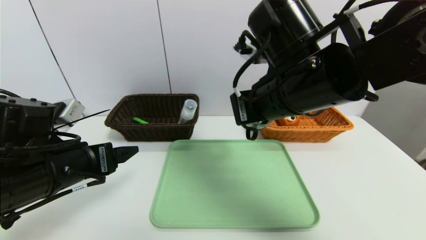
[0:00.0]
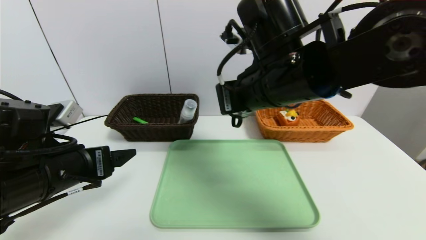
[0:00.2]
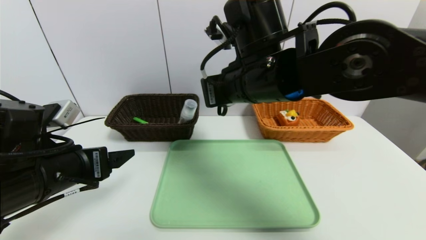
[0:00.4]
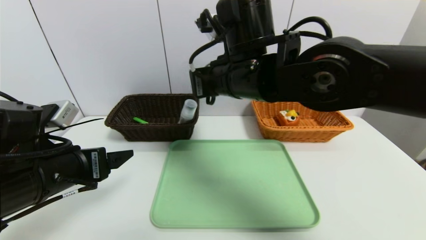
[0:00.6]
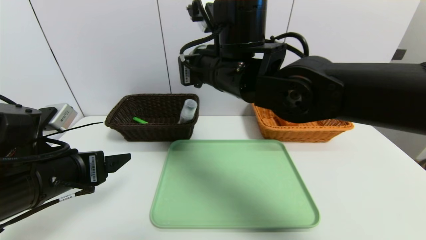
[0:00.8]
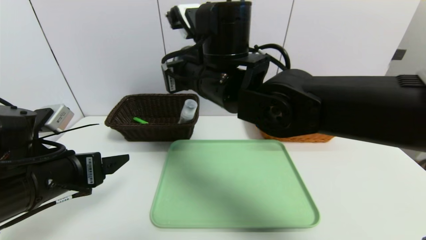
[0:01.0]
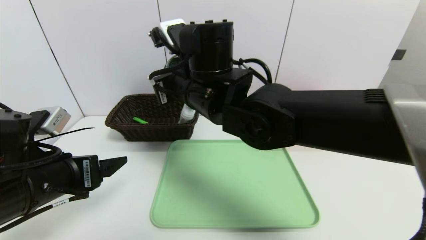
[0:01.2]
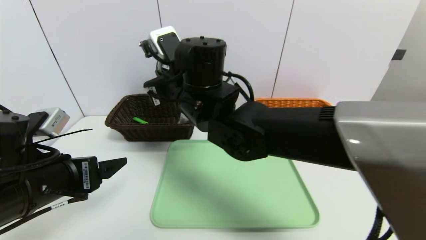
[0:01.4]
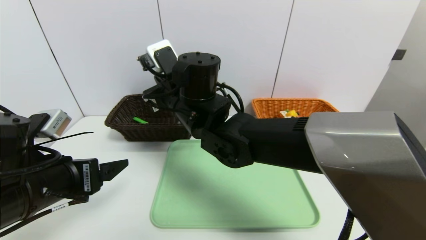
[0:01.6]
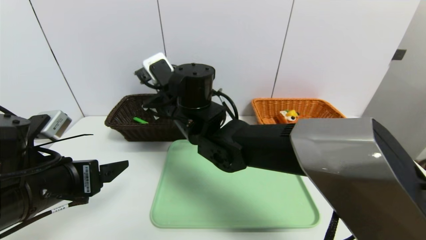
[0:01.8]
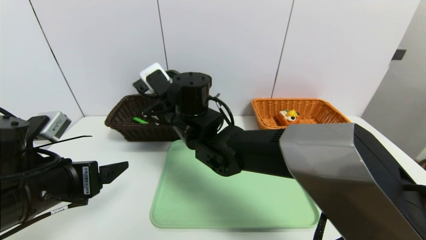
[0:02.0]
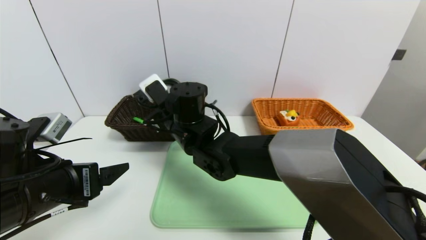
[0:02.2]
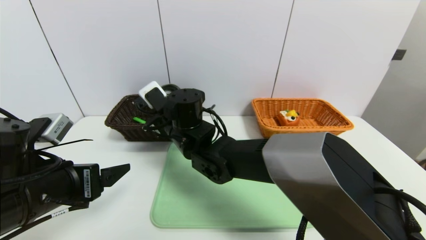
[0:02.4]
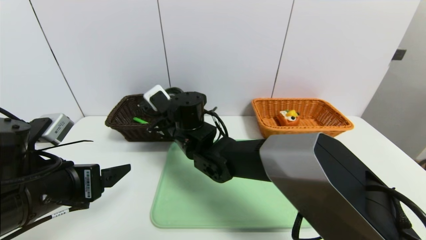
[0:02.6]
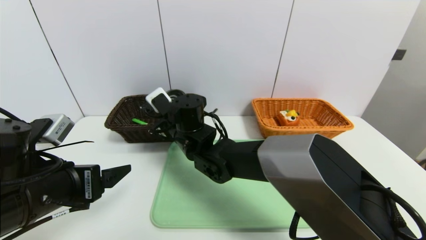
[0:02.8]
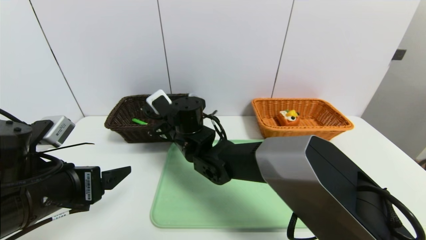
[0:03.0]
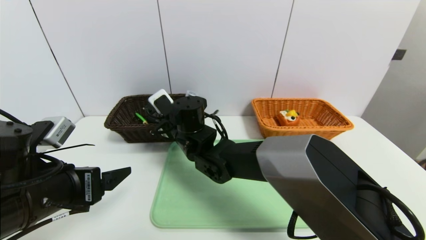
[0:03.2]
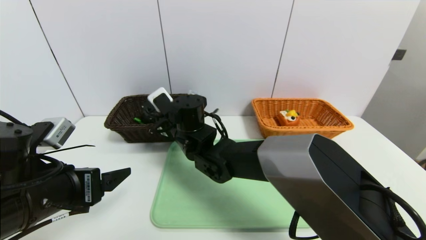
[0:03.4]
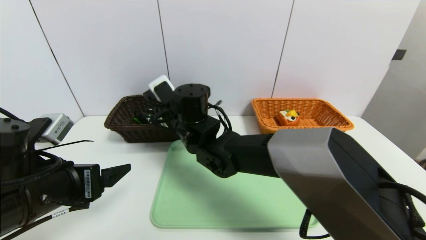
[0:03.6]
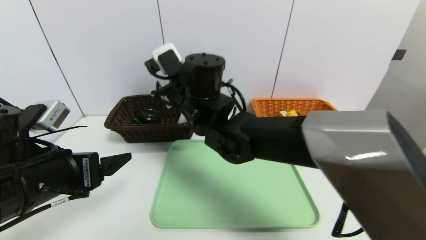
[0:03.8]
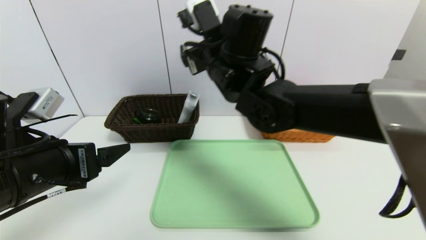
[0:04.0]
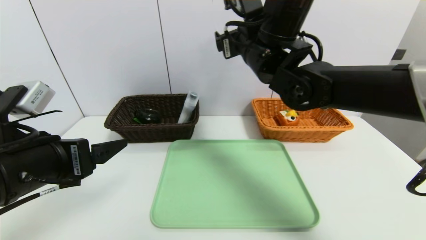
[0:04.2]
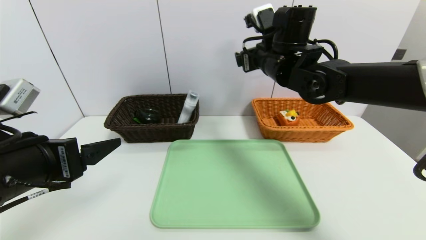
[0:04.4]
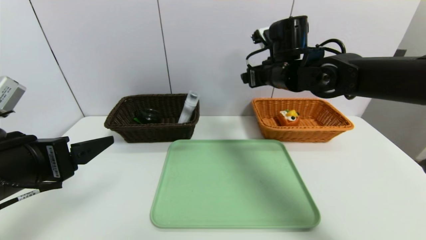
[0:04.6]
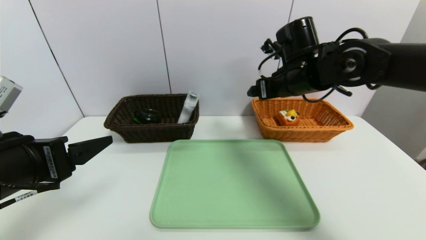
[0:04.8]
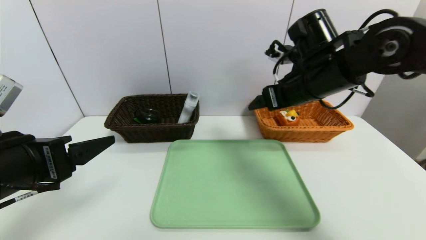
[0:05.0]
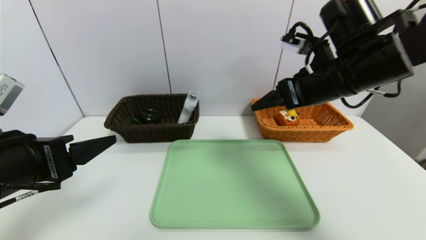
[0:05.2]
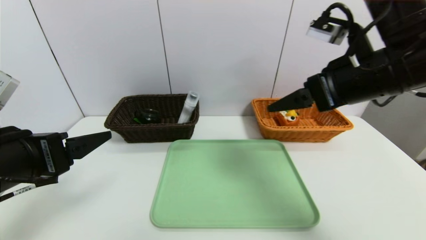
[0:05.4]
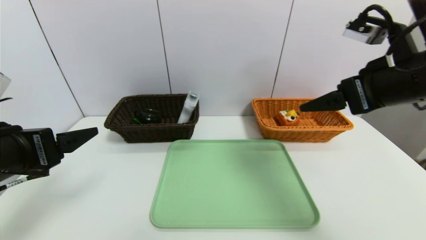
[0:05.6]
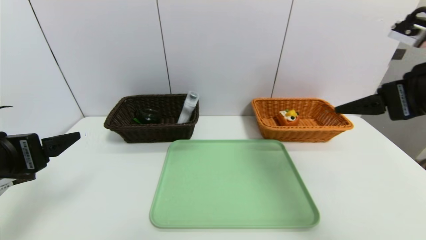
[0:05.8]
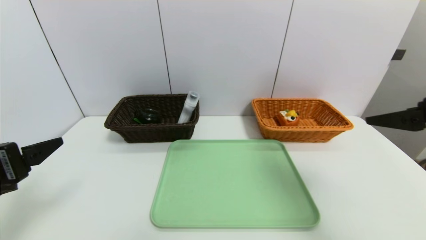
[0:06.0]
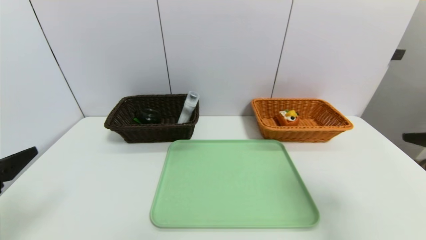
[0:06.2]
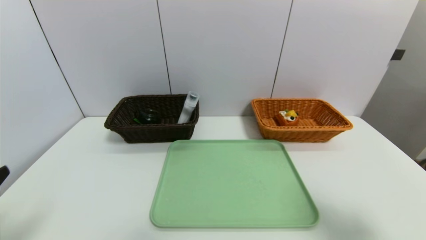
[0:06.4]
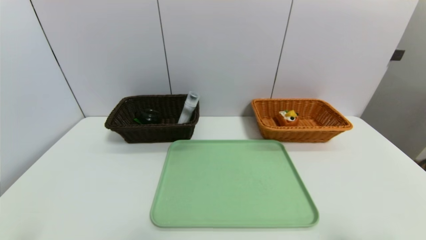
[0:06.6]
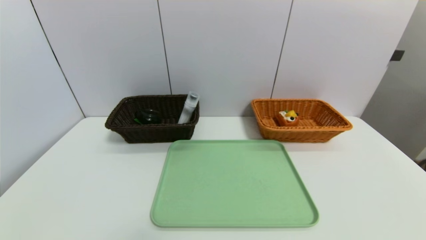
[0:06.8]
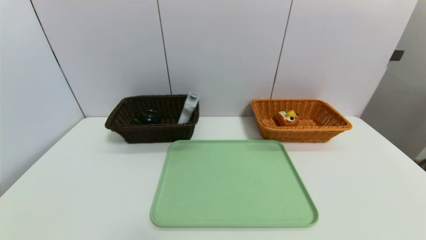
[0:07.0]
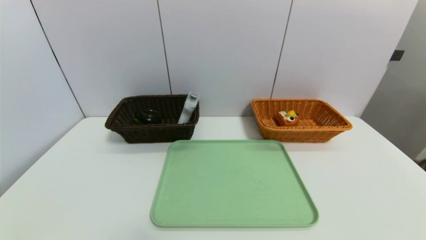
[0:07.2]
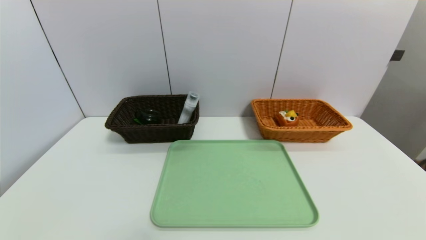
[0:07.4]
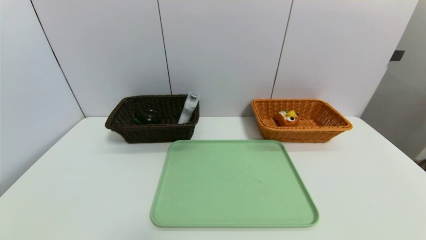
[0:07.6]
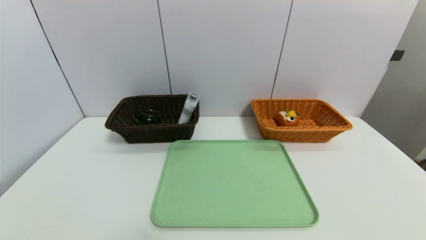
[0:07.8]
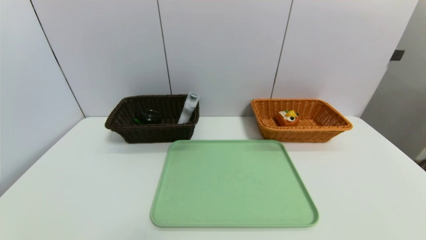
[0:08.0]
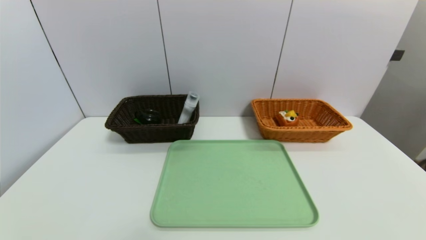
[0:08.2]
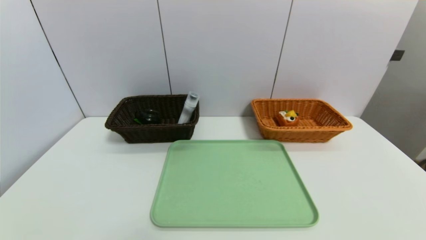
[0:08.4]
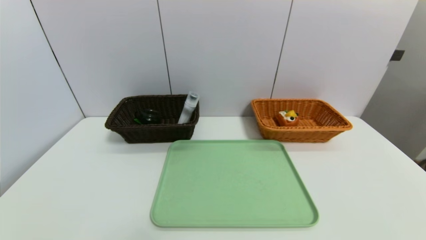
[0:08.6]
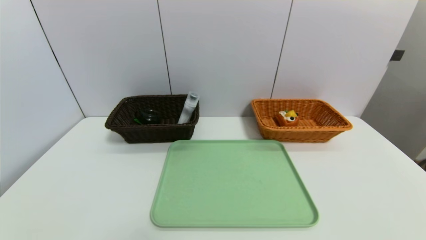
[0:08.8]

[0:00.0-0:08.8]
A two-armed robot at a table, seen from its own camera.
Task of the whole recording: place the food in the right basket with the right gripper, and place the non food items in the left basket with the left gripper.
0:00.0 to 0:01.4: The right gripper is displaced to the left and forward by about 15 cm.
0:01.4 to 0:03.0: The right gripper travels downward by some 10 cm.
0:03.0 to 0:04.4: The right gripper moves to the right and upward, roughly 25 cm, and opens.
0:04.4 to 0:05.8: The right gripper moves backward and to the right, about 25 cm.
0:05.8 to 0:07.4: The grippers both shift backward and downward by approximately 25 cm.

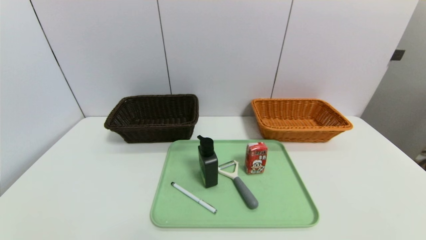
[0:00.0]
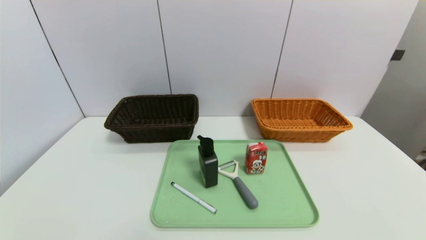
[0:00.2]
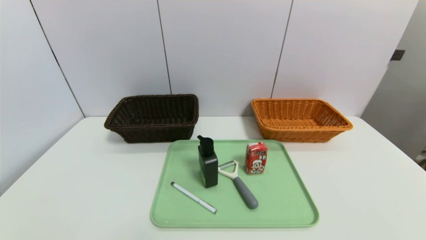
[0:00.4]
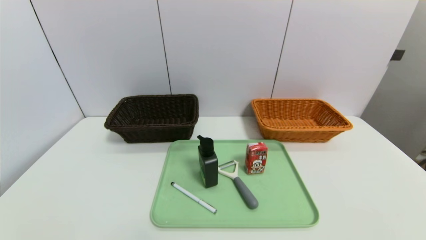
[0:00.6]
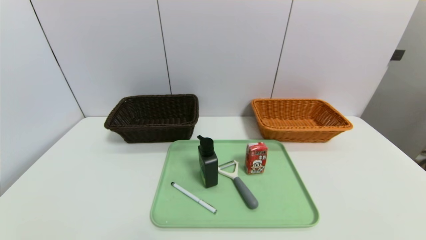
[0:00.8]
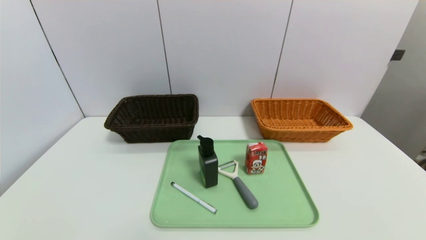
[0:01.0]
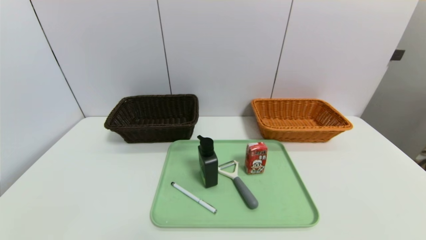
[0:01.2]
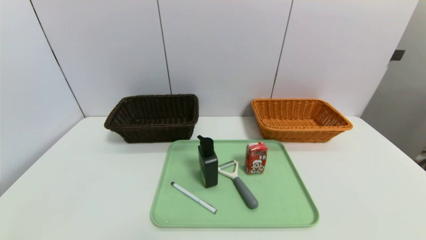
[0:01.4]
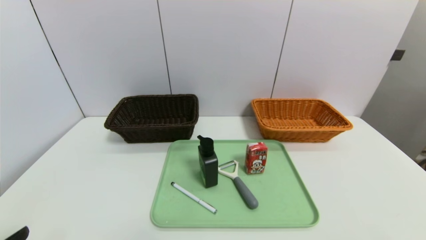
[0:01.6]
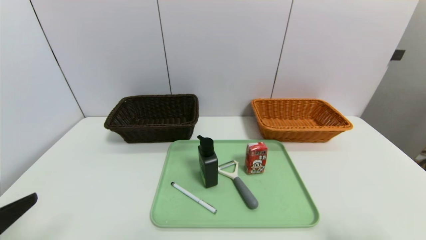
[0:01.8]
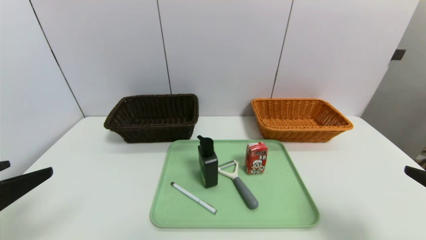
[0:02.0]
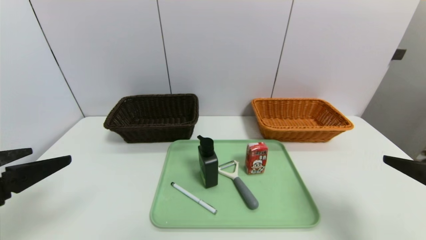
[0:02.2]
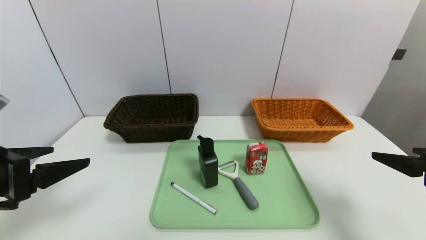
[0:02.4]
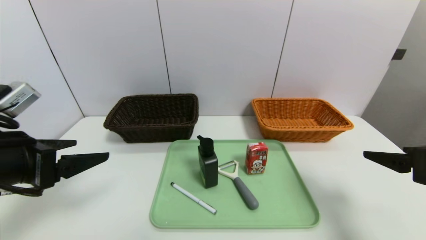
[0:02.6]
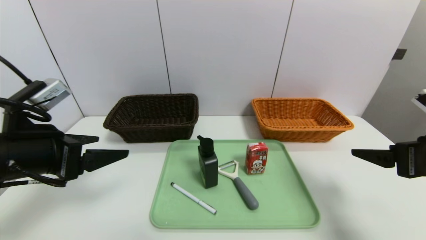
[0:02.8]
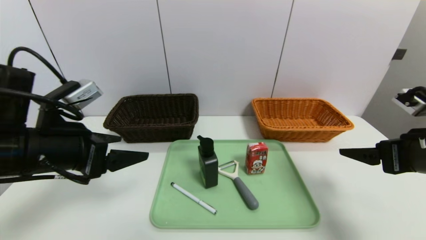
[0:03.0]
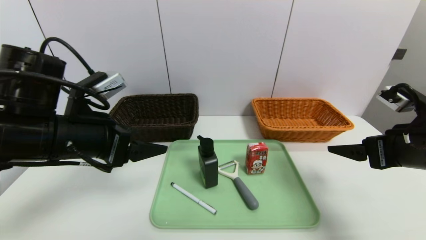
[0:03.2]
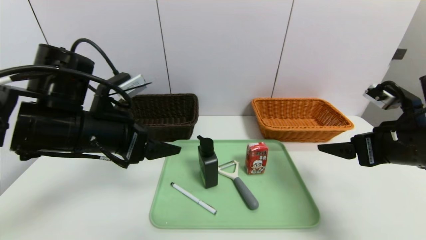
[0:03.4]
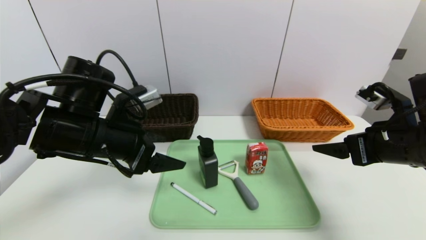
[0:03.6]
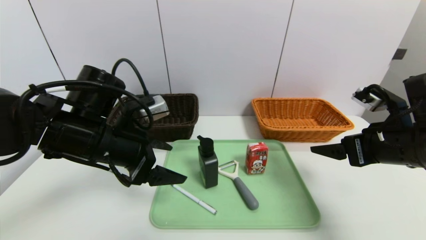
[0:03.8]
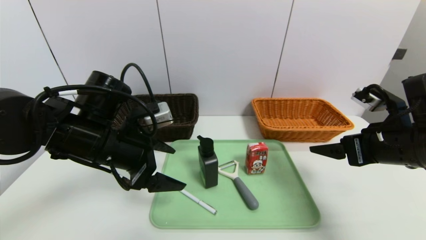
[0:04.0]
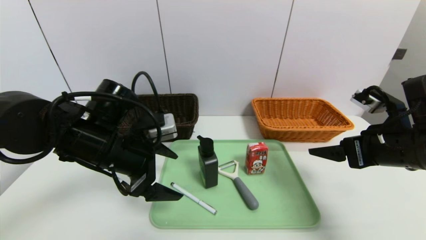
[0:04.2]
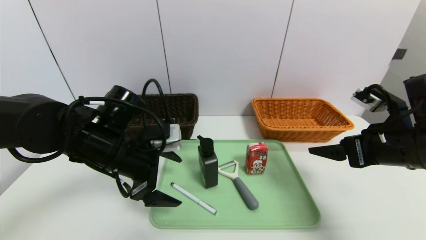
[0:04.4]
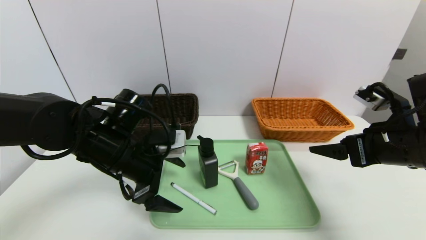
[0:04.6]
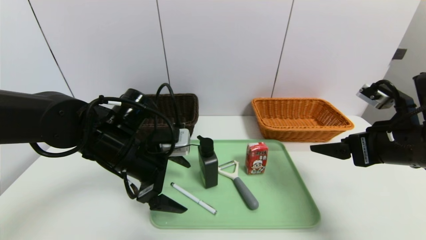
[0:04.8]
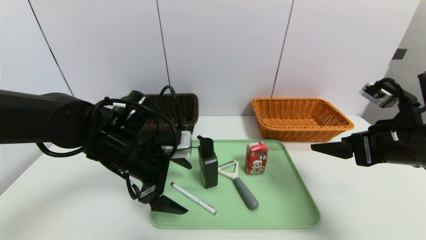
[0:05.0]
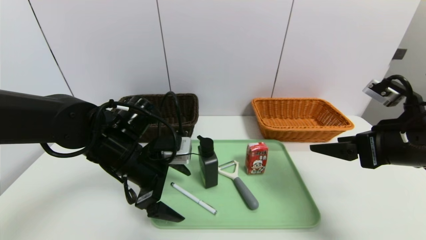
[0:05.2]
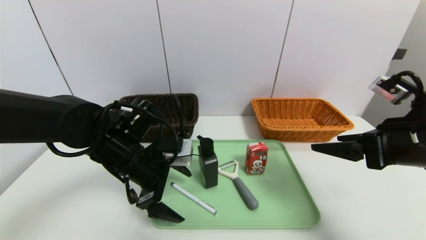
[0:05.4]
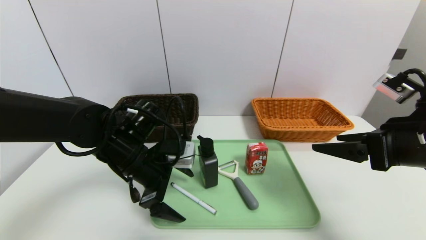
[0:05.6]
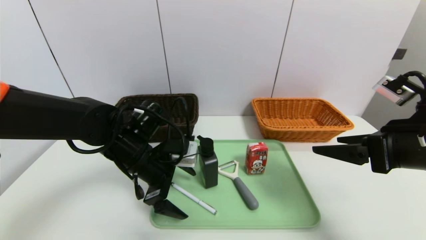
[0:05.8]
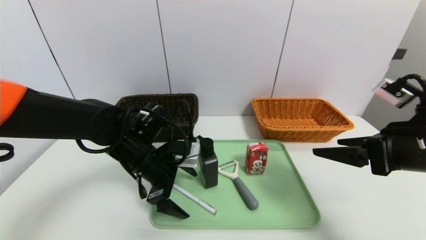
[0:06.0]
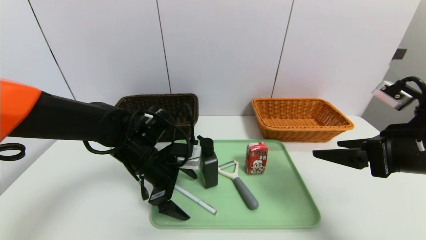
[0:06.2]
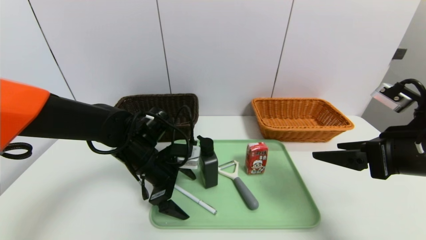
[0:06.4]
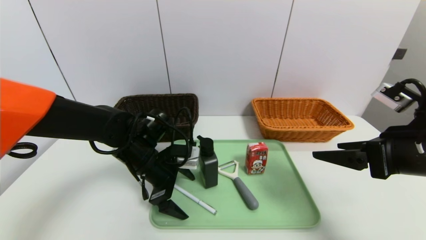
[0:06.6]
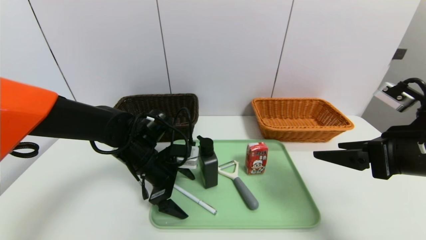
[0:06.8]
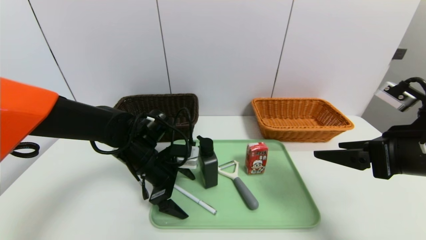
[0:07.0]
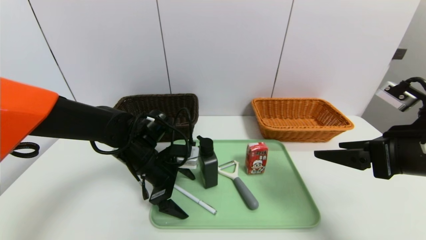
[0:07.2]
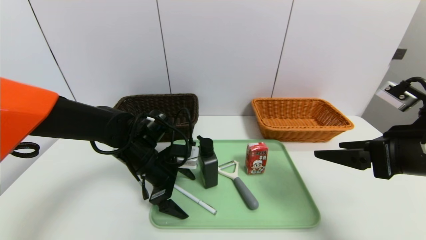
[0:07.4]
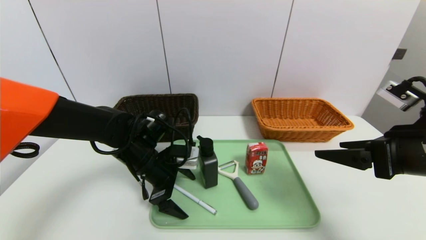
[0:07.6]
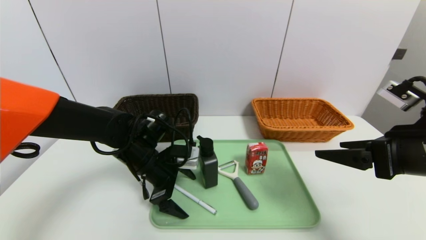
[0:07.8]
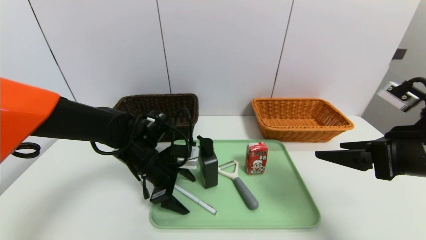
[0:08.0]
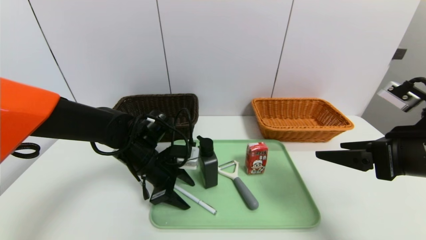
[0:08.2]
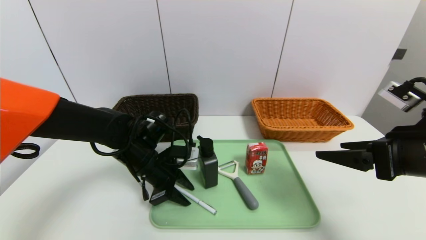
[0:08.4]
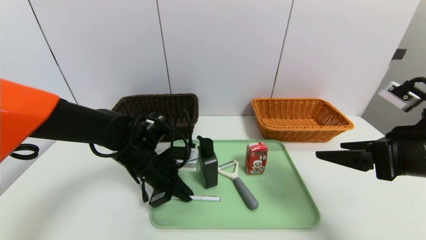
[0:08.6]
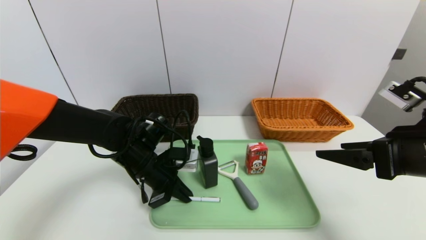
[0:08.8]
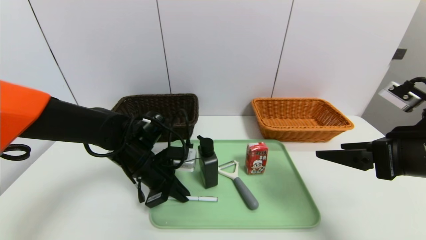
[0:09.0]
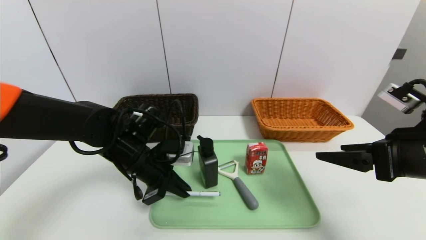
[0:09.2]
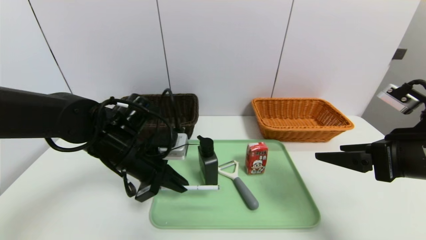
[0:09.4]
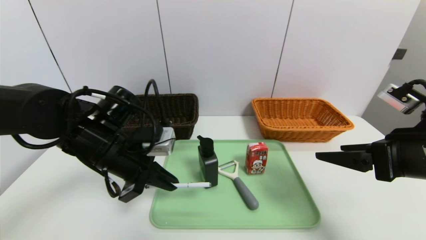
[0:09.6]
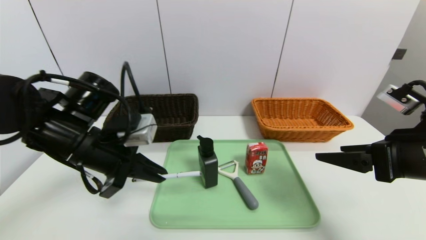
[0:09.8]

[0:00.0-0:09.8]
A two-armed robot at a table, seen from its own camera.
Task of the whole recording: place the food in the right basket with the right gripper, and place the non food items in the left basket with the left gripper.
0:01.4 to 0:02.8: The two grippers go some 20 cm forward and upward.
0:02.8 to 0:04.2: The right gripper changes place by roughly 5 cm; the left gripper goes some 10 cm to the right and forward.
0:04.2 to 0:05.6: The grippers stay close to where they were, moving slightly.
0:05.6 to 0:07.0: There are only small adjustments of the grippers.
0:07.0 to 0:08.4: The left gripper closes up.
0:08.4 to 0:09.8: The left gripper shifts some 15 cm upward, to the left and backward.
